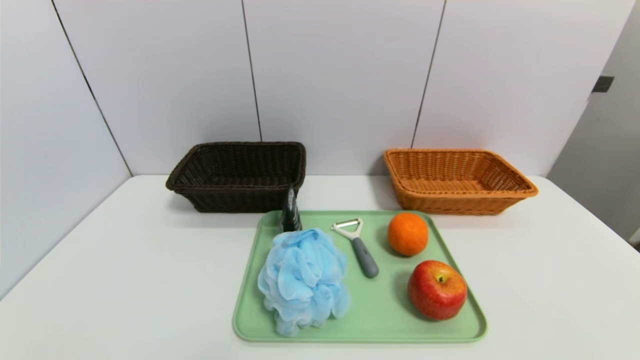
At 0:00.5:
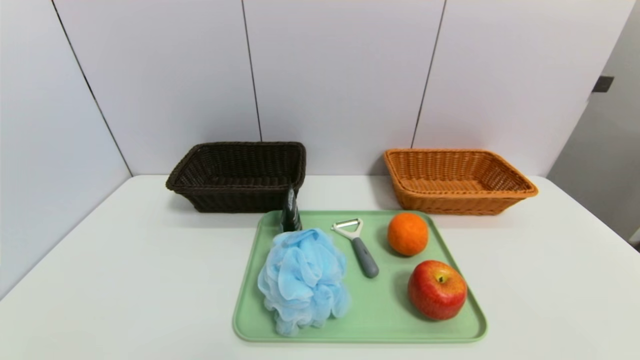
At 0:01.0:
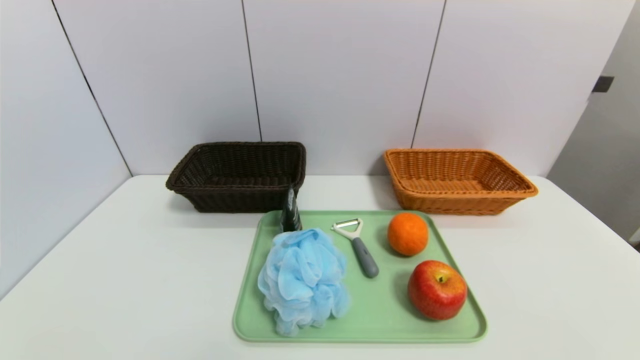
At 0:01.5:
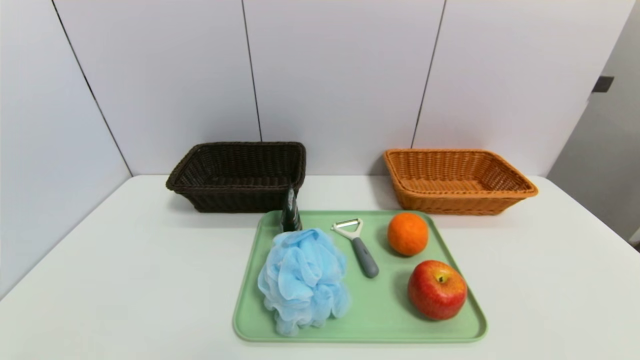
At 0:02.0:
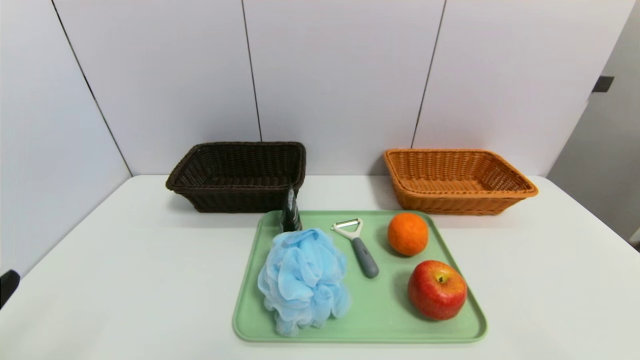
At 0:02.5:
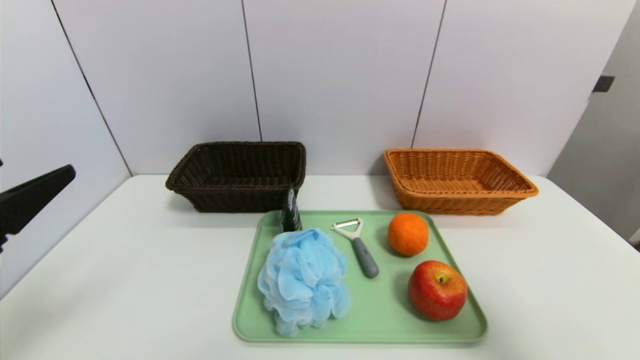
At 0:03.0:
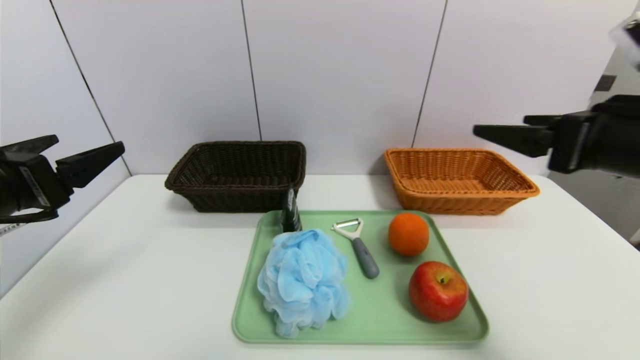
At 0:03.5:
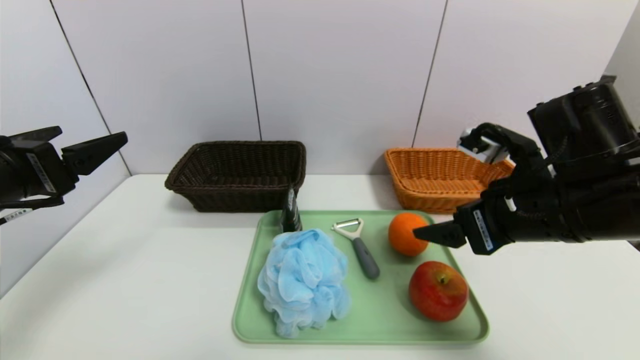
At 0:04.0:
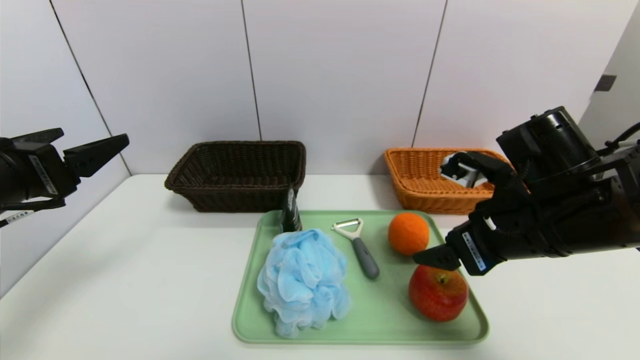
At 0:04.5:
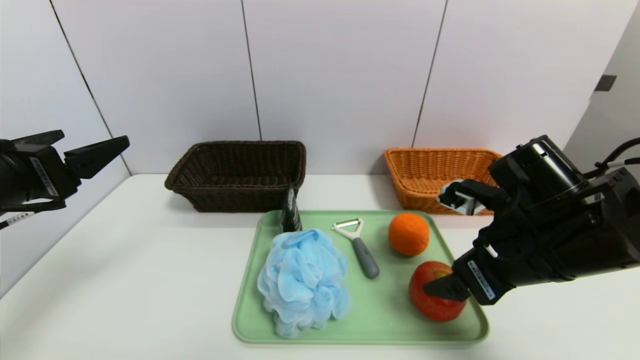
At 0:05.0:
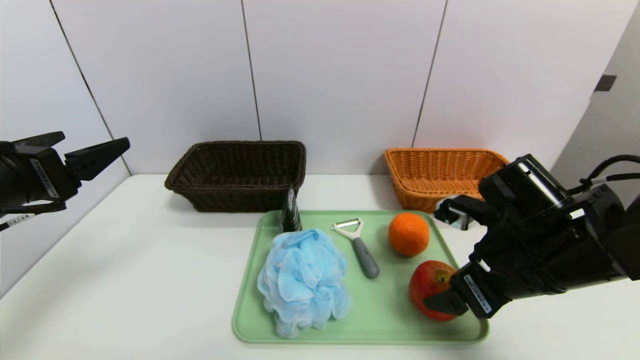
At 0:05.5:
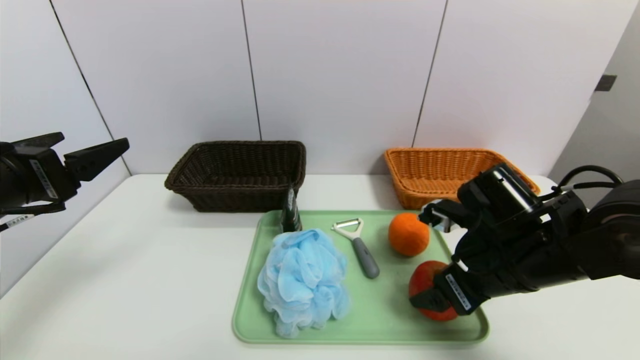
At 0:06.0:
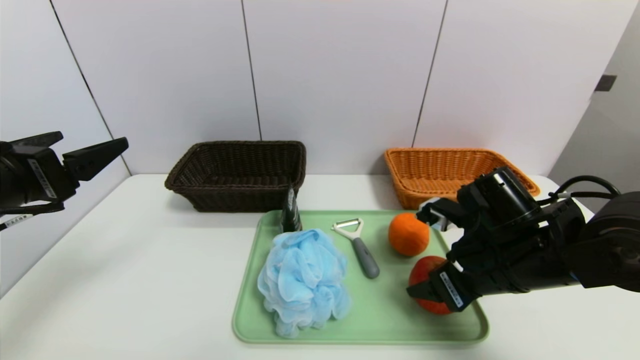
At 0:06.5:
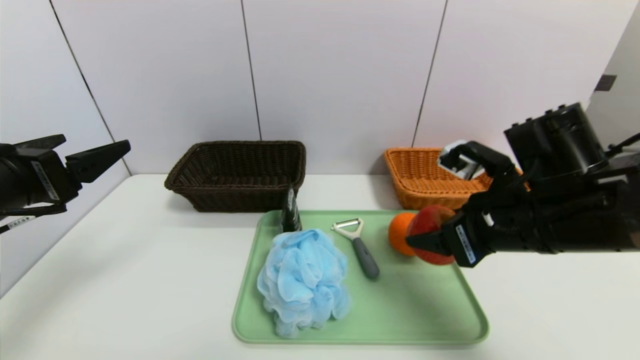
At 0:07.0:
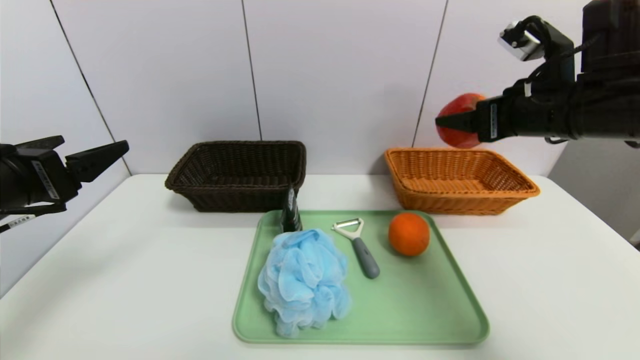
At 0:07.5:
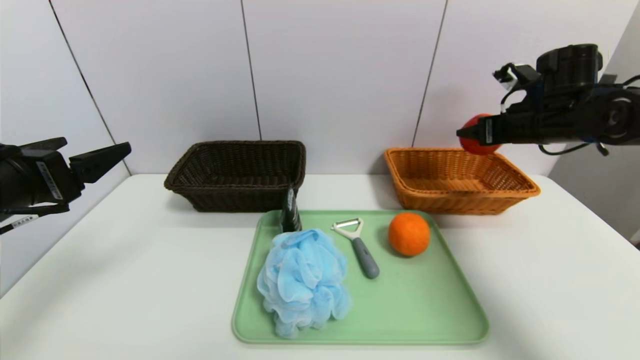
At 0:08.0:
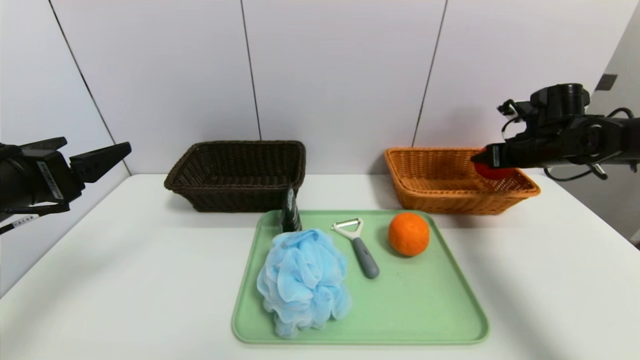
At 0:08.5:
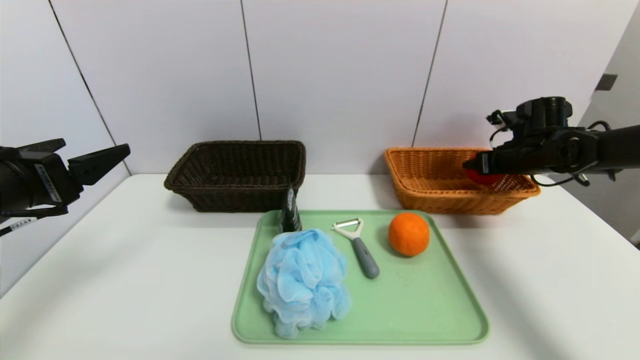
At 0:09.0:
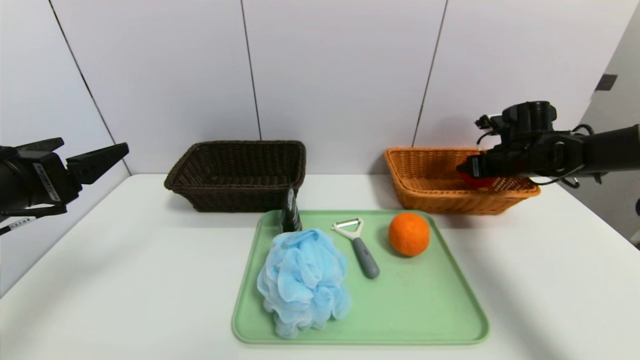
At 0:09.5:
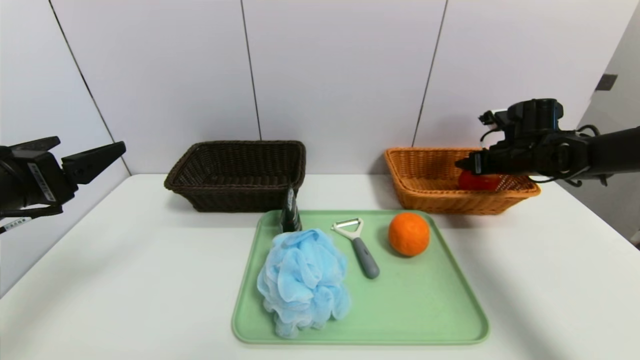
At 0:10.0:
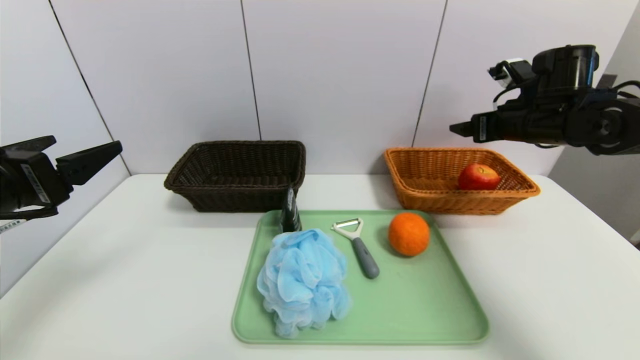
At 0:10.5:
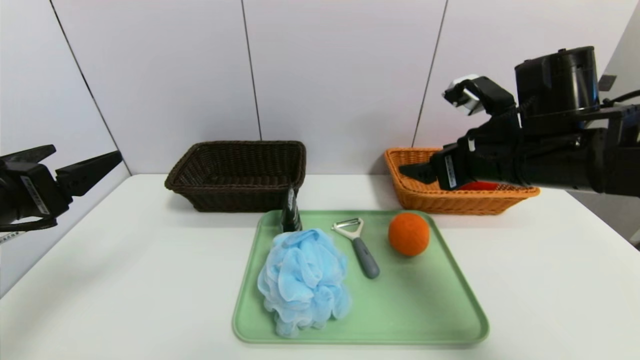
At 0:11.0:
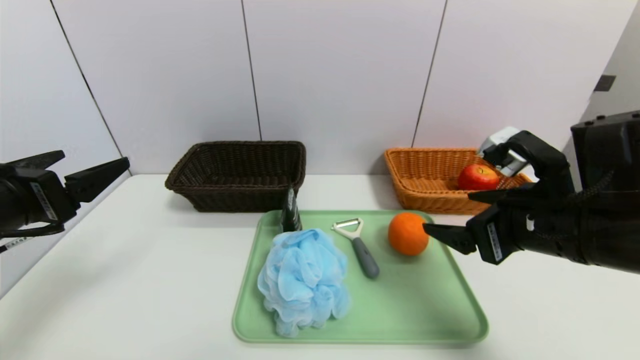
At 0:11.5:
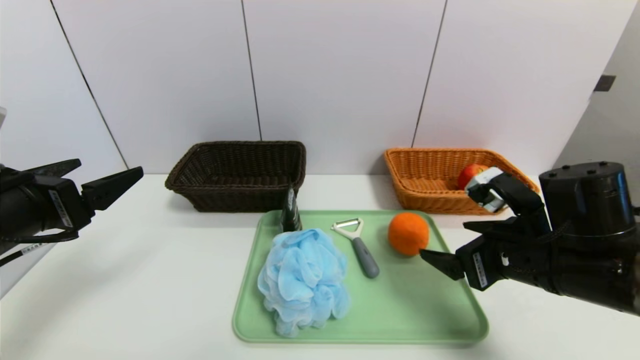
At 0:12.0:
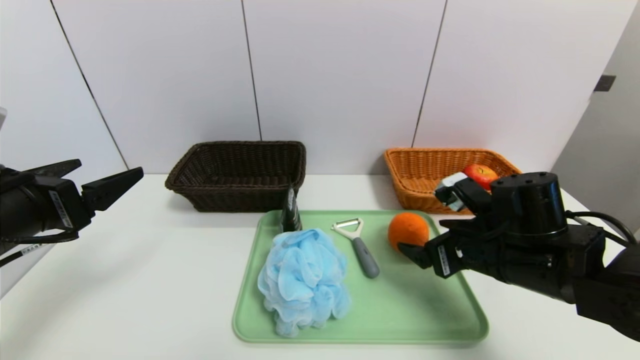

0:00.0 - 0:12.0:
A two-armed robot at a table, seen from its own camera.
Task of the whole recording: place the food in the right basket with the right gripper, and place the non food items in the left basket with the left gripper.
Step, 0:00.0 - 0:09.5: Grasp the apple and put it in the right basket.
0:02.0 - 0:04.0: The right gripper shifts some 25 cm forward and to the left; the left gripper heads forward, covering approximately 15 cm.
0:04.0 - 0:06.0: The right gripper heads downward, covering some 5 cm.
0:06.0 - 0:08.0: The right gripper is displaced forward and to the right by about 25 cm.
0:08.0 - 0:10.0: The right gripper travels to the left and upward by approximately 10 cm.
0:10.0 - 0:12.0: The right gripper goes some 20 cm backward, downward and to the left.

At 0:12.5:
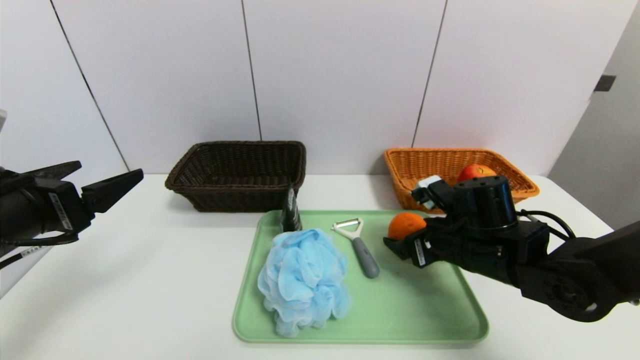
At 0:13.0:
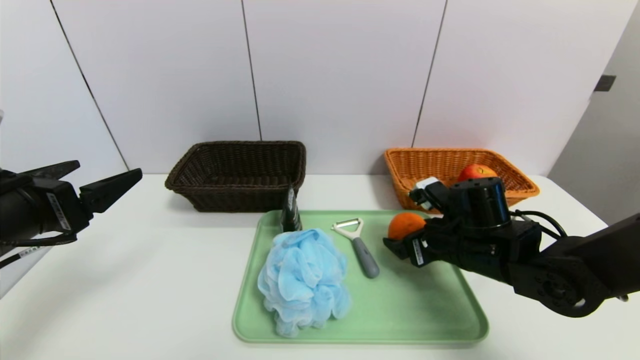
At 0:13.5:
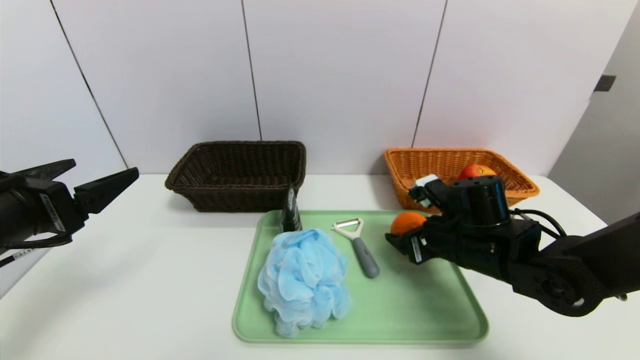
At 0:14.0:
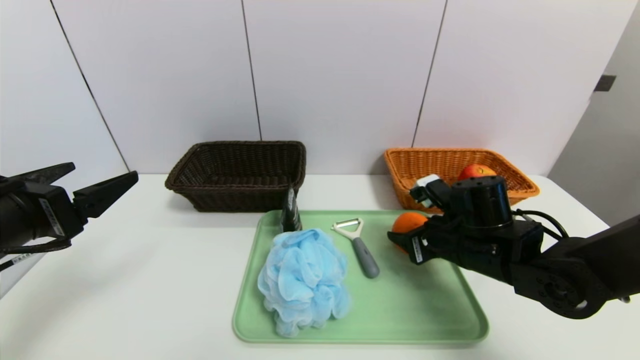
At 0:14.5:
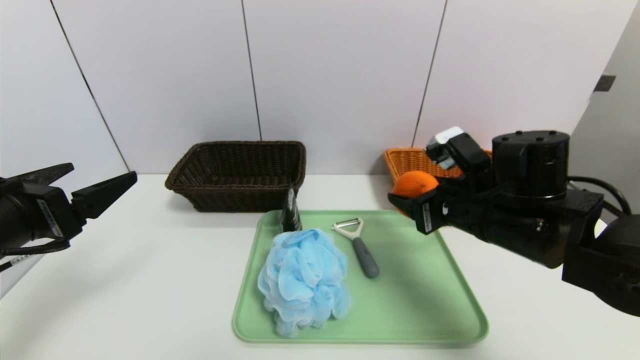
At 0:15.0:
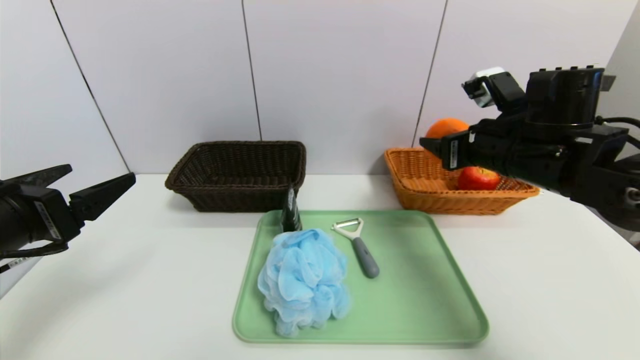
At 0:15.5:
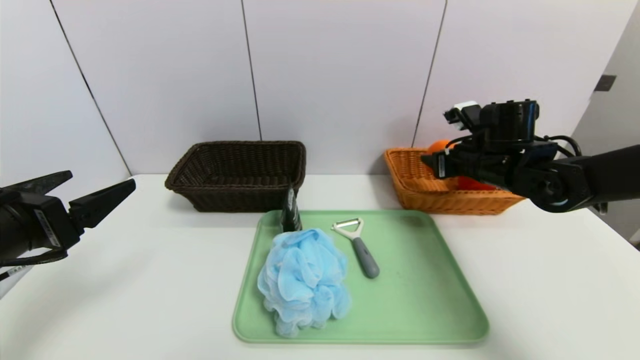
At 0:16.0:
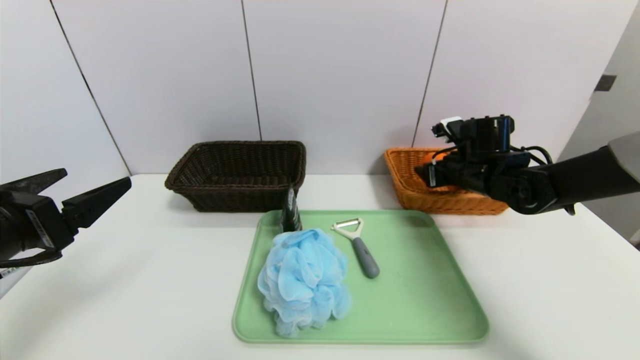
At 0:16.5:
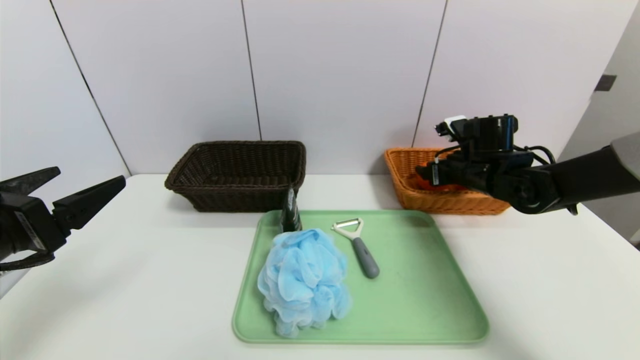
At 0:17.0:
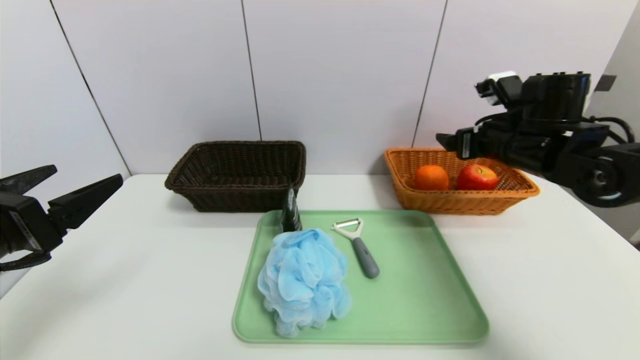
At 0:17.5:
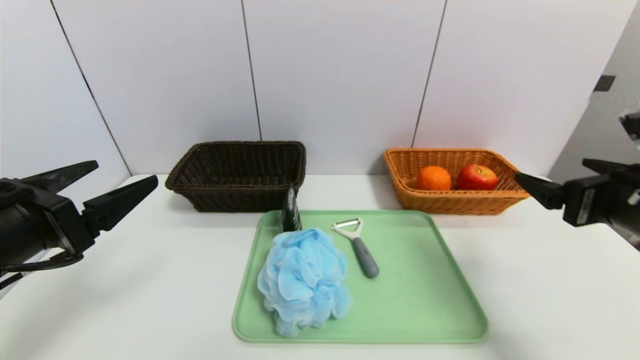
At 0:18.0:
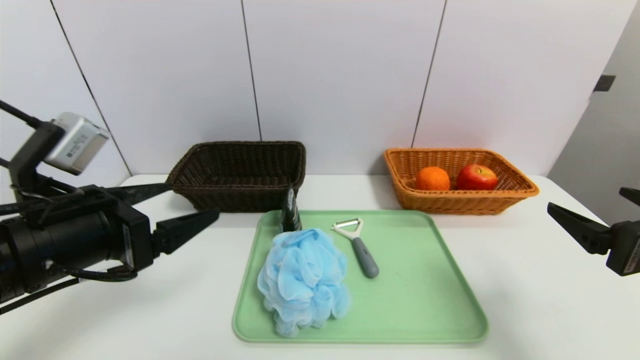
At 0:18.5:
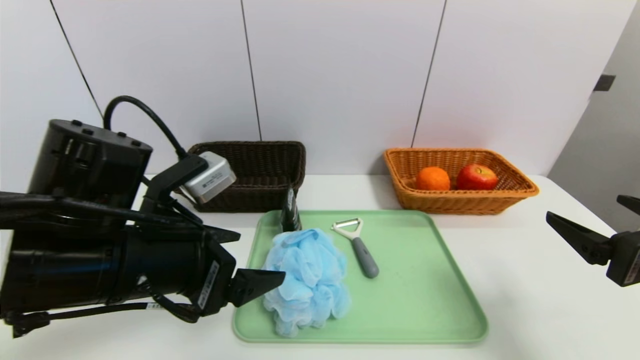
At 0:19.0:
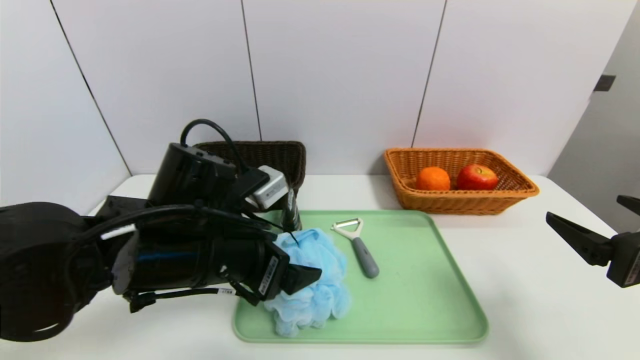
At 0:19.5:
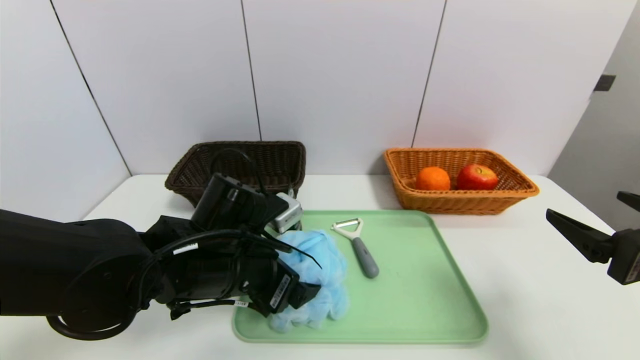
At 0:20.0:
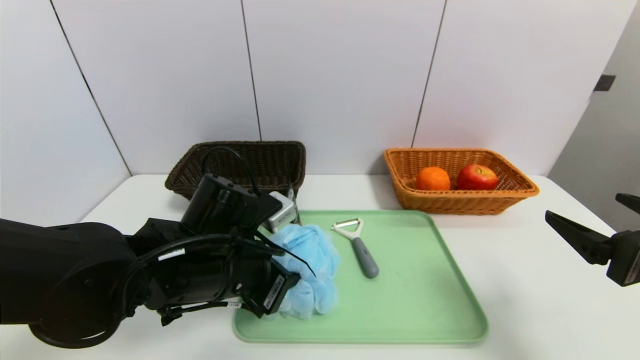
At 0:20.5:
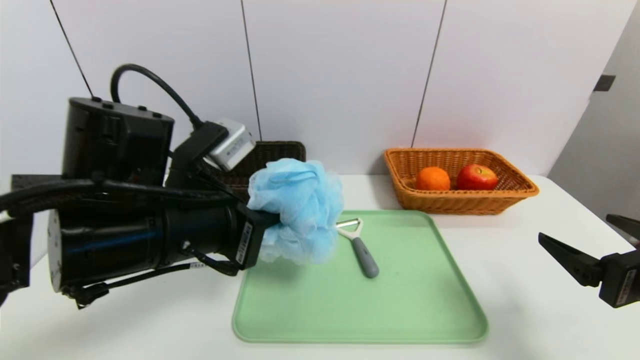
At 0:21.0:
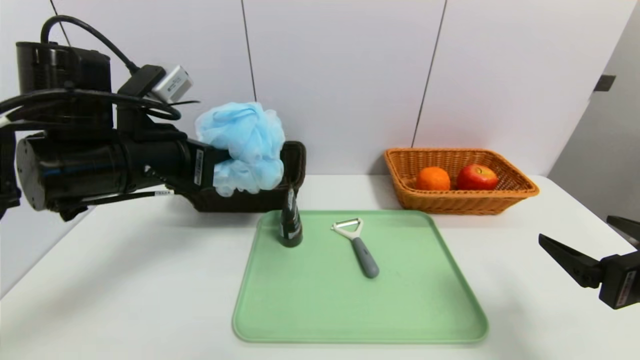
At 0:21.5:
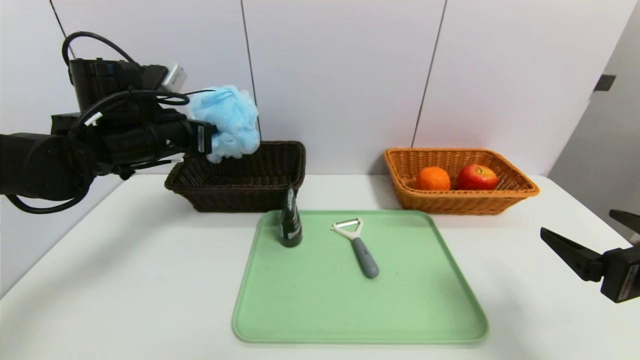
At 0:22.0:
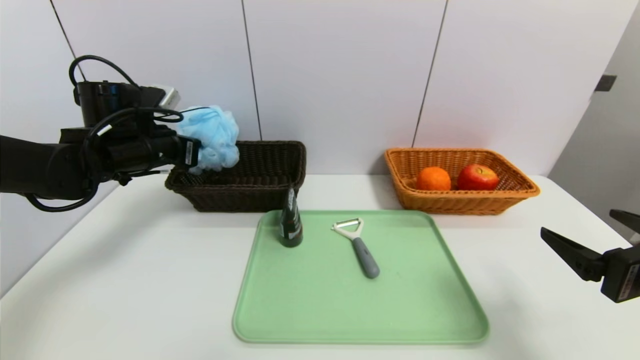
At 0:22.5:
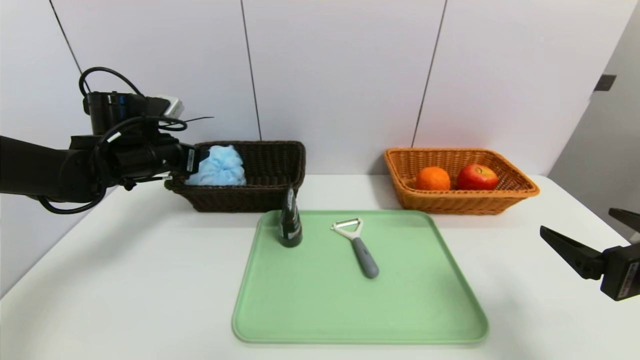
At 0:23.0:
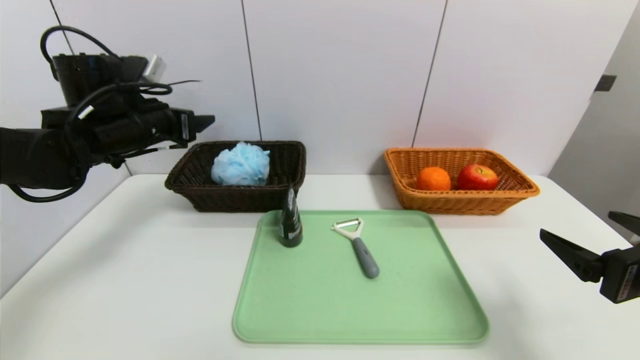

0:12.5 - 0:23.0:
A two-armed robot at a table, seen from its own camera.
Task of the whole recording: place the food in the right basket with the right gripper, and place the non food items in the left basket with the left gripper.
Step, 0:12.5 - 0:16.5: Grasp the orange and put it in the right basket.
0:12.5 - 0:14.5: The right gripper travels upward by roughly 10 cm, and closes up.
0:14.5 - 0:16.5: The right gripper travels forward and to the right by approximately 15 cm.
0:16.5 - 0:19.0: The right gripper travels backward by some 30 cm. Meanwhile the left gripper is displaced to the right and forward by about 20 cm.
0:19.0 - 0:21.0: The left gripper travels to the left and upward by approximately 10 cm, and closes up.
0:21.0 - 0:23.0: The left gripper moves forward and to the left, approximately 10 cm, and opens.
